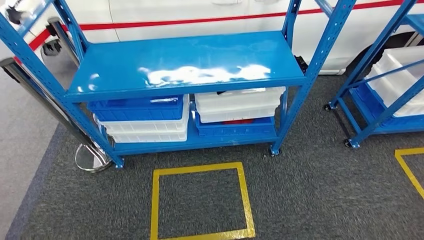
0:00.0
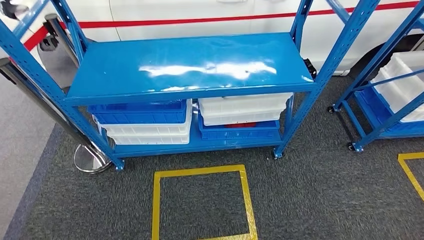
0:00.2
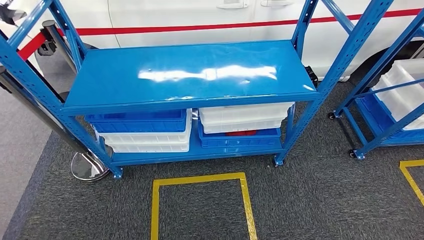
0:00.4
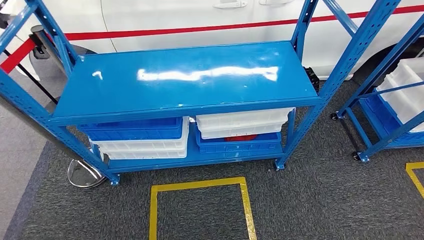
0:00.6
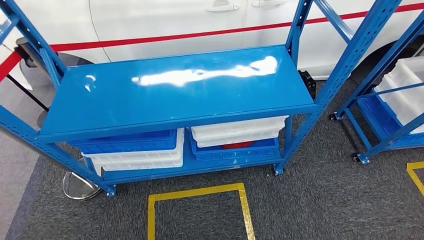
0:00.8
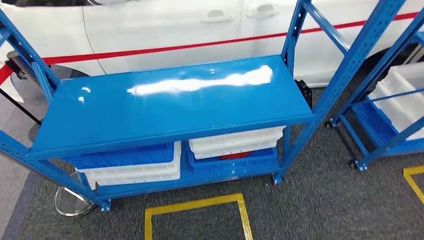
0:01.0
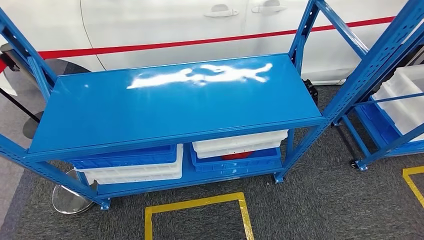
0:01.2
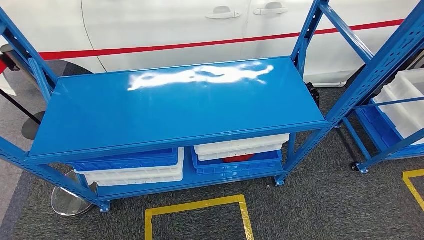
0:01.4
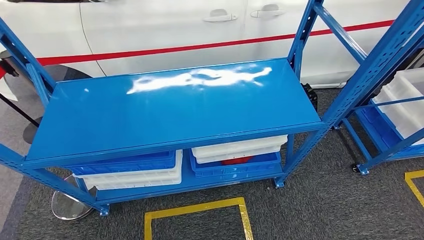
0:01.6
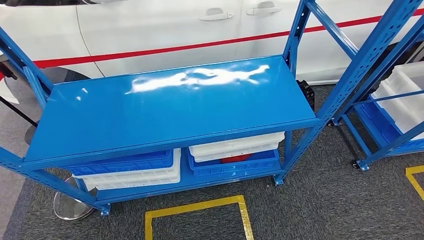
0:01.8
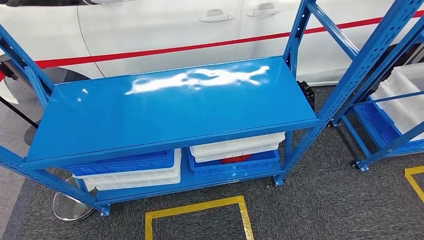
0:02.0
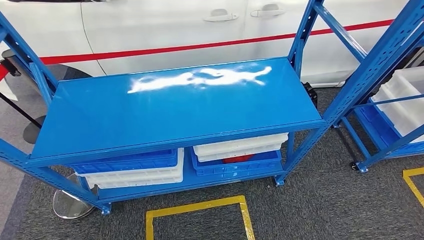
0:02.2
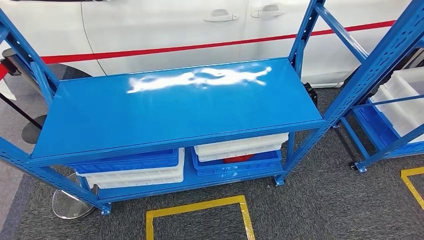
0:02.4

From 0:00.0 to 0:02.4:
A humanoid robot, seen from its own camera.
Step, from 0:00.0 to 0:02.4: Return to the initial position at the shelf.
